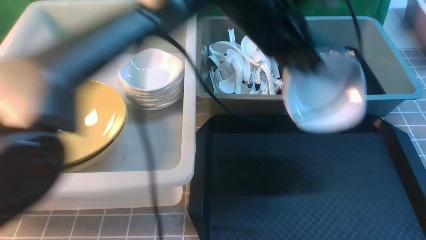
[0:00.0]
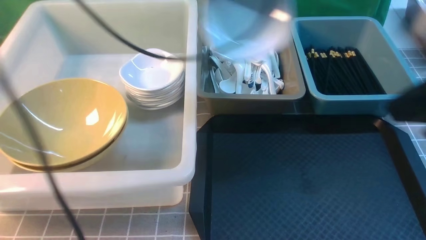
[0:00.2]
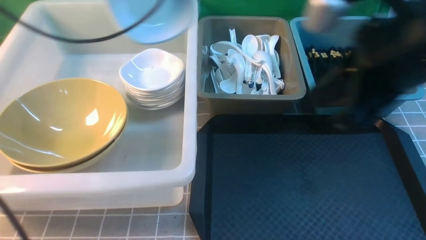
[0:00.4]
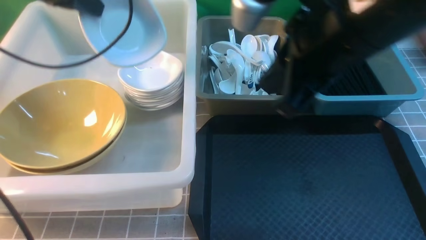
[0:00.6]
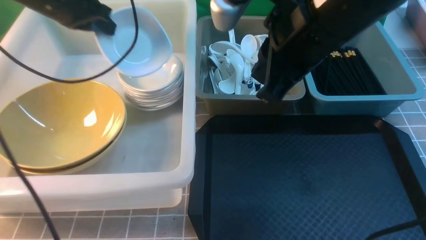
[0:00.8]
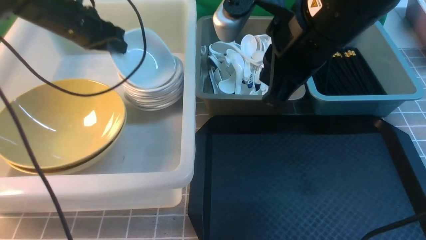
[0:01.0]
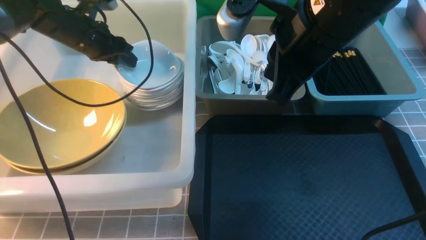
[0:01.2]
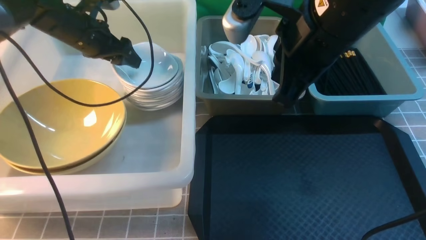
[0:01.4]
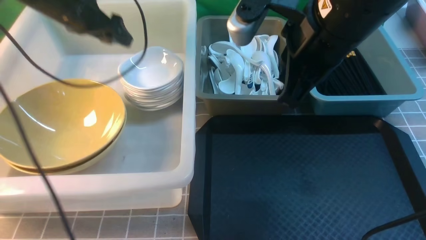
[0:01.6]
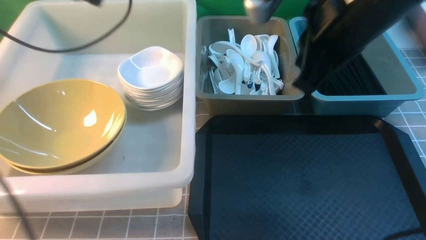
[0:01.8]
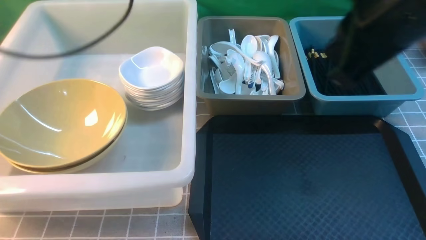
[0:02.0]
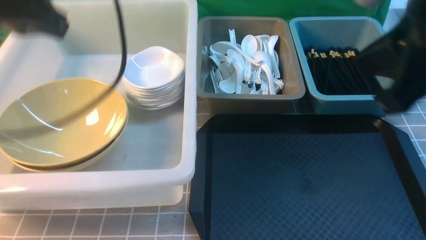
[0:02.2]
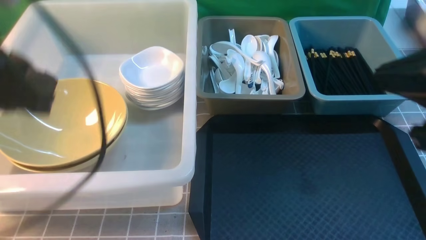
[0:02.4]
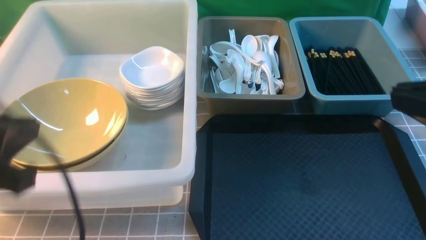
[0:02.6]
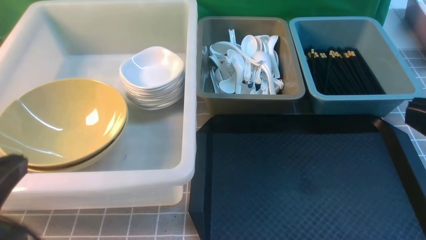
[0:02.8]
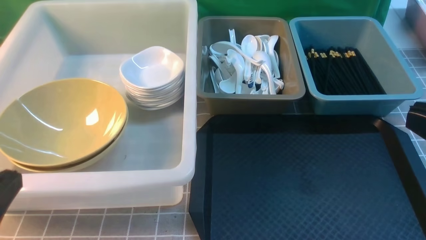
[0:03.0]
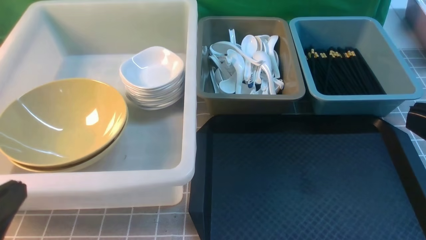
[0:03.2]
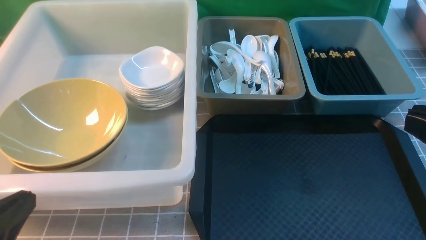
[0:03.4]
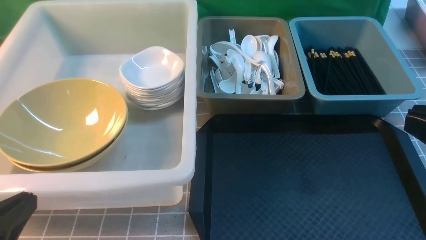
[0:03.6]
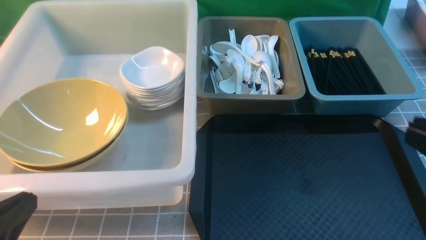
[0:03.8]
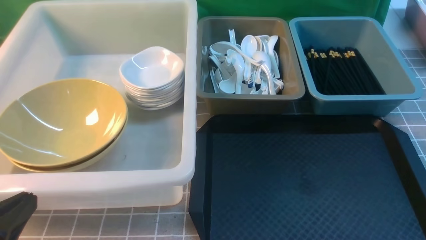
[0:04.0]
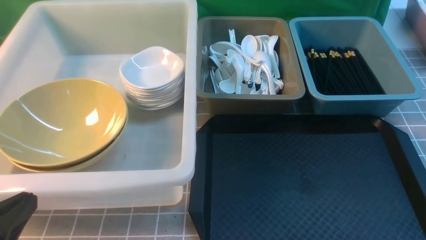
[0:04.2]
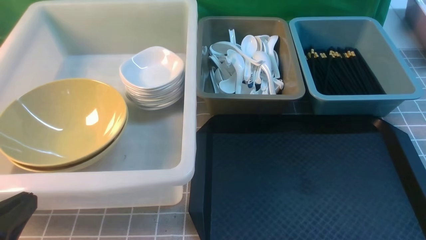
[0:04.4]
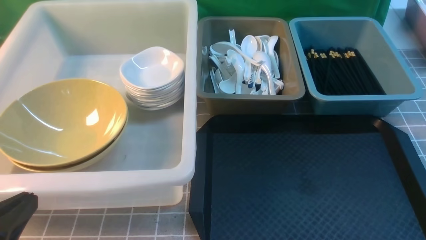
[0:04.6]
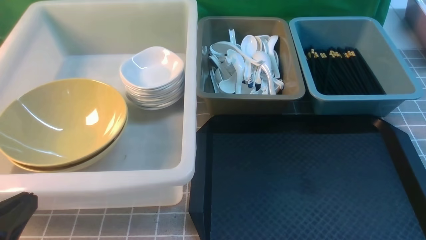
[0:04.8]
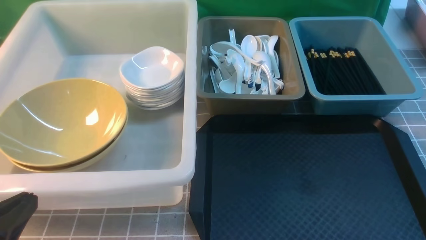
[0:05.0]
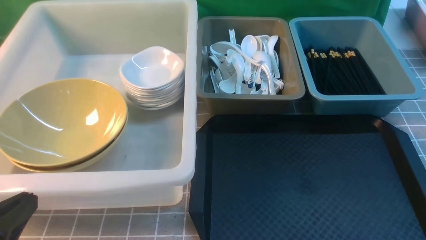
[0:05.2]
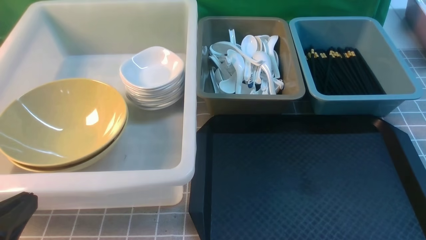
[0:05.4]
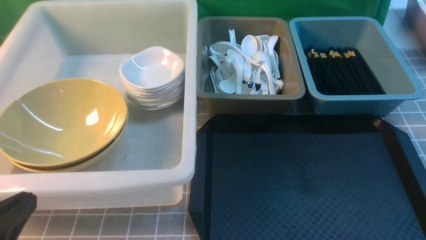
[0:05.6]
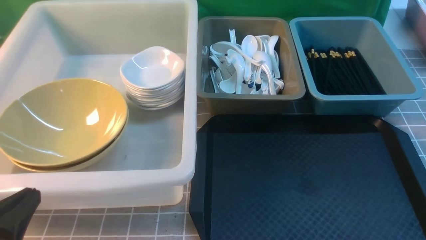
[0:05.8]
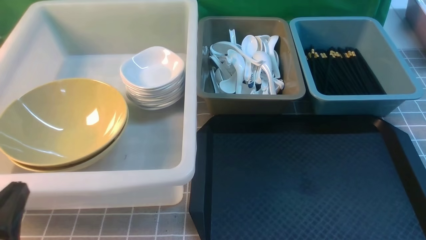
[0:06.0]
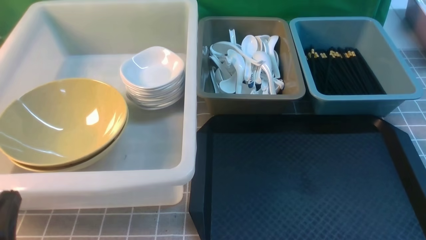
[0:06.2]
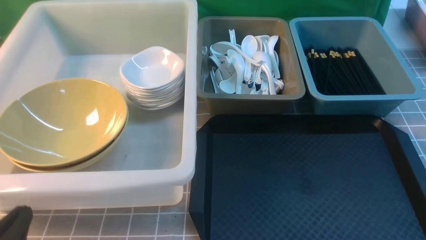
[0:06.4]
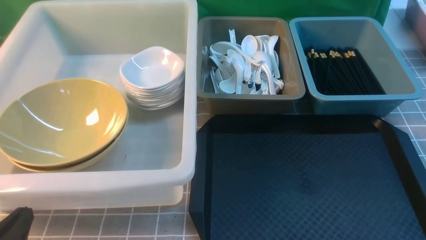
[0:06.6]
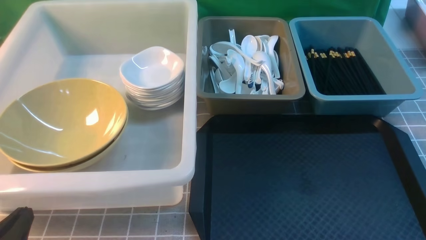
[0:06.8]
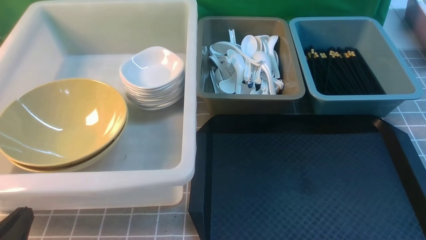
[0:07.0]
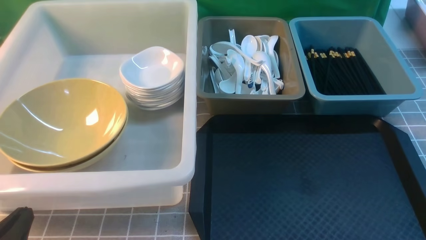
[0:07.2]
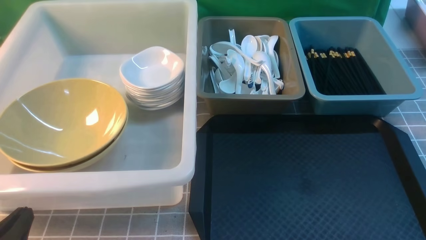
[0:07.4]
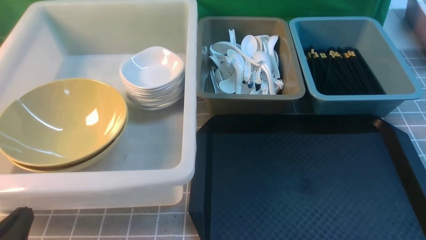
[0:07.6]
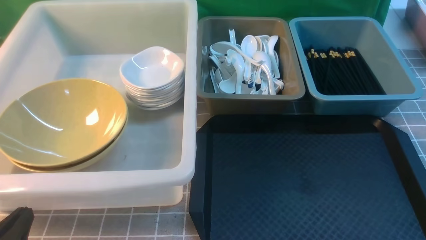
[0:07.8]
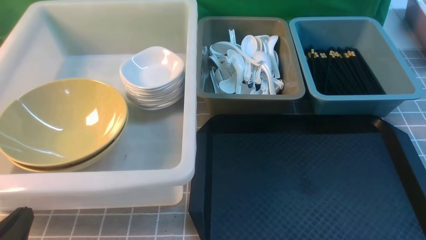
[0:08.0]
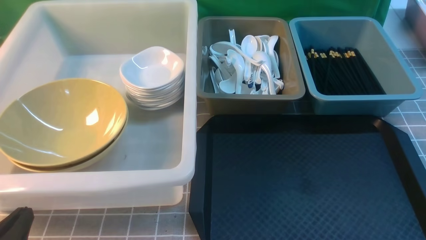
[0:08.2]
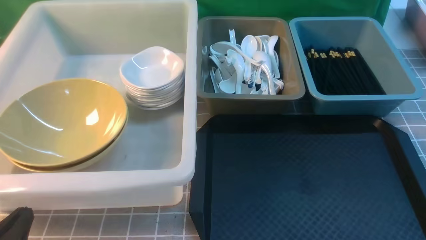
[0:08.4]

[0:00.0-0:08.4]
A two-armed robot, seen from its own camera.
Task of the whole recording: on grey table put chopsticks spoon bowls plates into blue grey white boxes.
Step, 0:00.0 to 0:01.4: use the left arm to put the plate into the large storage box on the left.
0:00.0 to 0:01.4: The left gripper shifts approximately 25 cm to the left, and opens its fingers. Meanwhile the right gripper goes approximately 20 cm to the left and forward.
0:01.4 to 0:02.8: The right gripper is displaced backward and to the right by approximately 25 cm. The left gripper moves backward, roughly 40 cm, and closes its fingers.
0:02.8 to 0:04.2: The left gripper shifts roughly 5 cm downward.
0:05.6 to 0:07.0: The left gripper heads downward, covering approximately 5 cm.
0:07.0 to 0:08.4: Both grippers stay about where they are.
